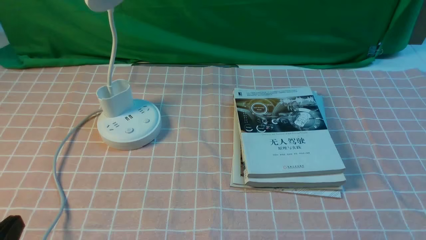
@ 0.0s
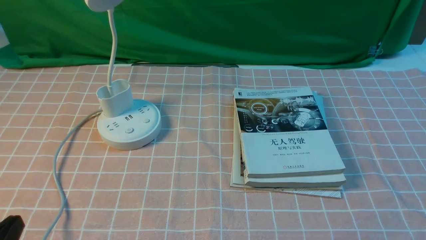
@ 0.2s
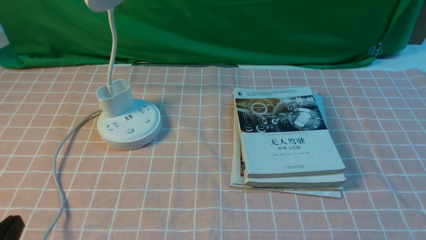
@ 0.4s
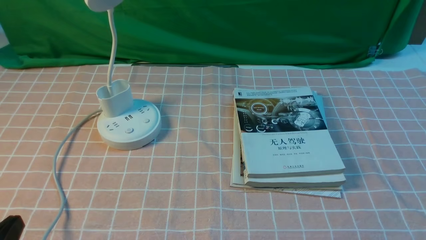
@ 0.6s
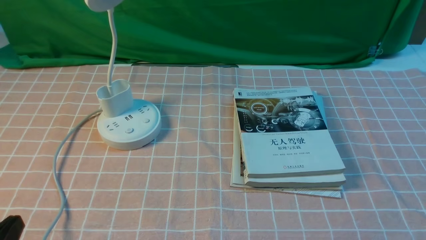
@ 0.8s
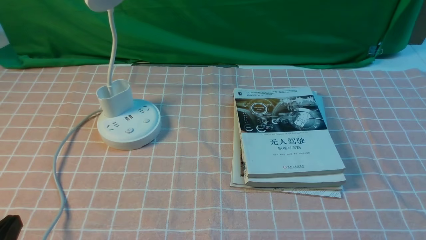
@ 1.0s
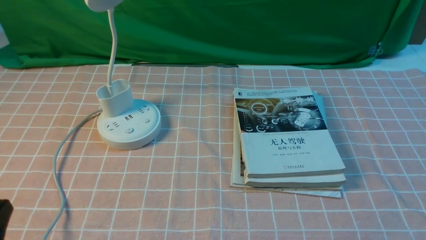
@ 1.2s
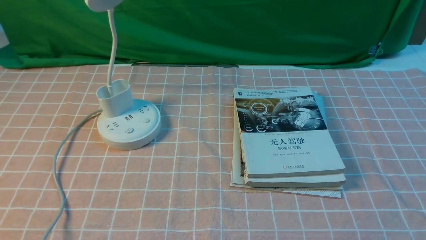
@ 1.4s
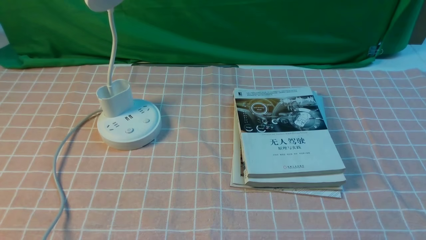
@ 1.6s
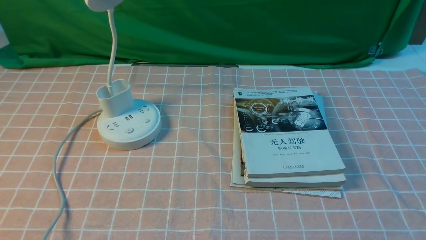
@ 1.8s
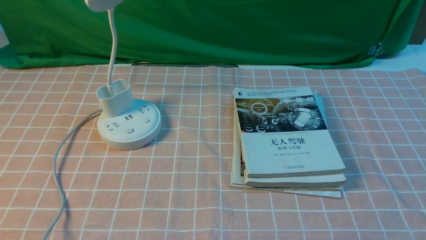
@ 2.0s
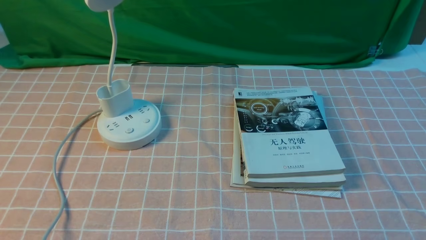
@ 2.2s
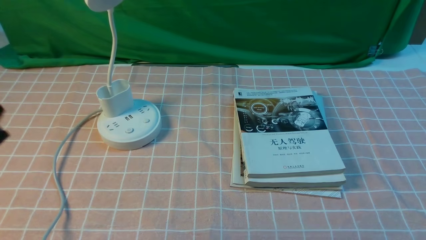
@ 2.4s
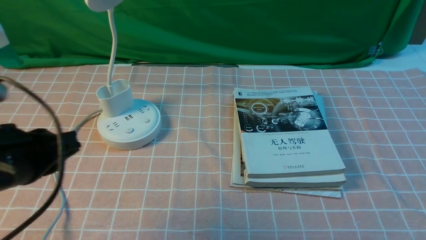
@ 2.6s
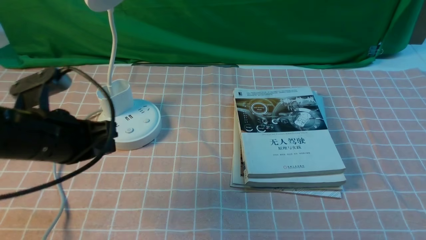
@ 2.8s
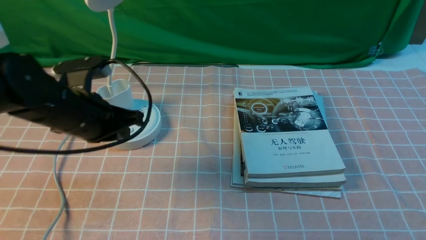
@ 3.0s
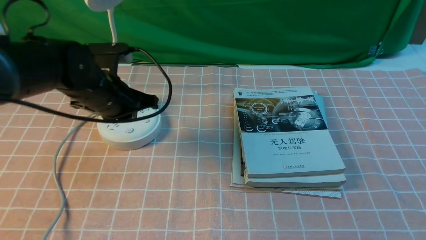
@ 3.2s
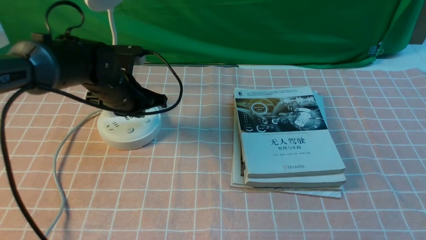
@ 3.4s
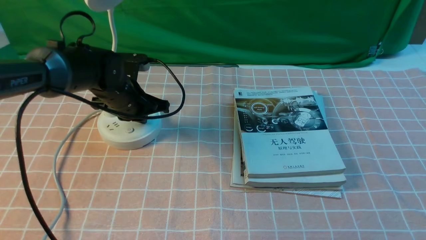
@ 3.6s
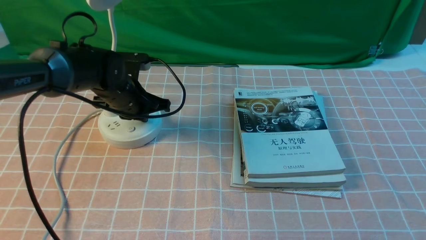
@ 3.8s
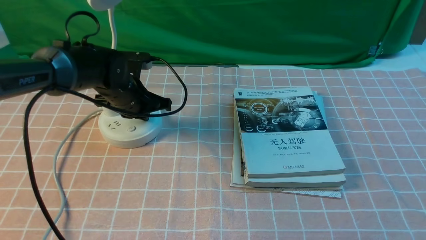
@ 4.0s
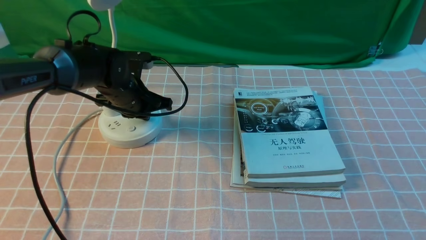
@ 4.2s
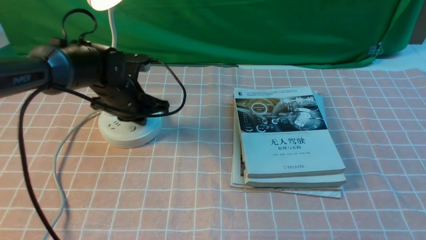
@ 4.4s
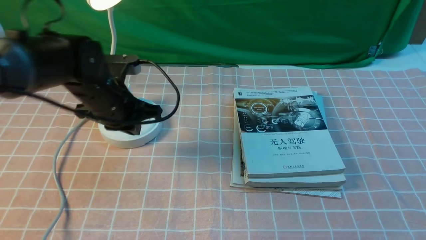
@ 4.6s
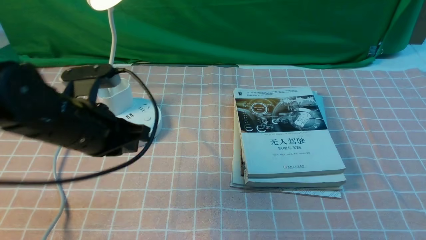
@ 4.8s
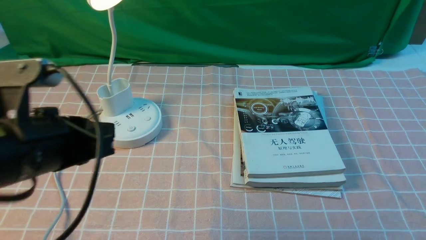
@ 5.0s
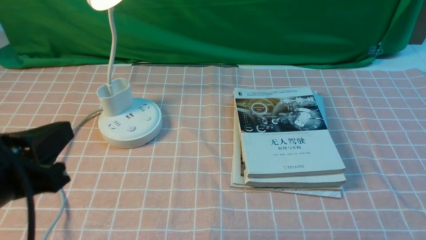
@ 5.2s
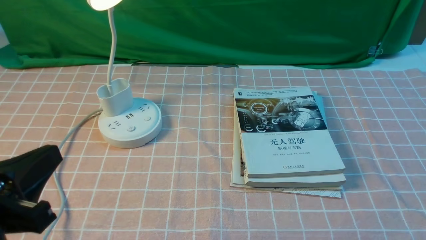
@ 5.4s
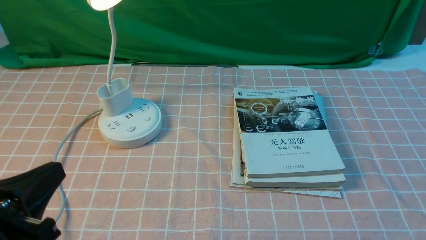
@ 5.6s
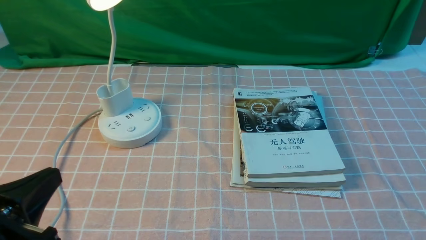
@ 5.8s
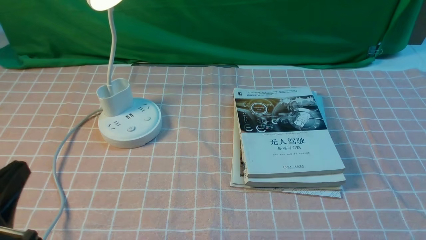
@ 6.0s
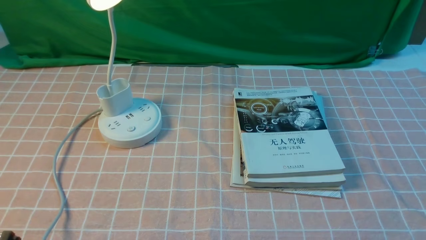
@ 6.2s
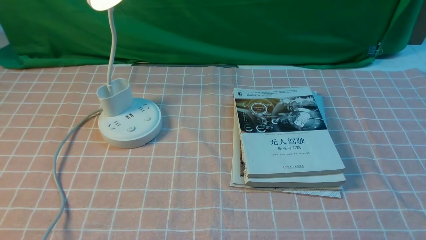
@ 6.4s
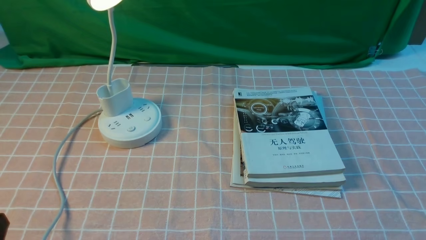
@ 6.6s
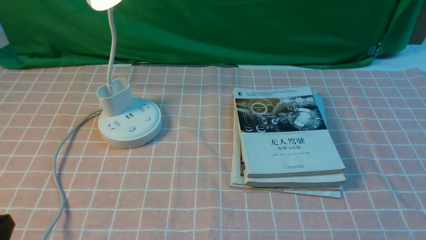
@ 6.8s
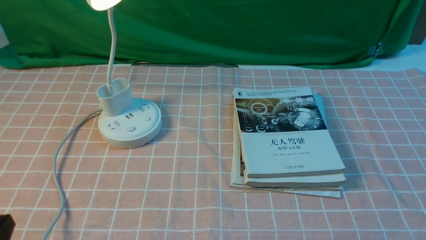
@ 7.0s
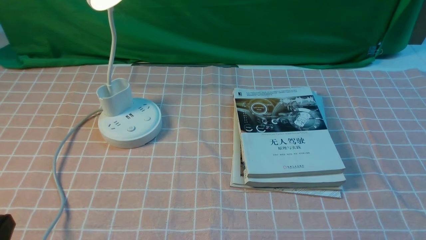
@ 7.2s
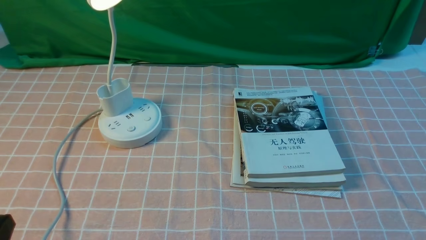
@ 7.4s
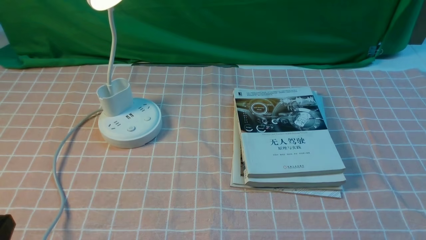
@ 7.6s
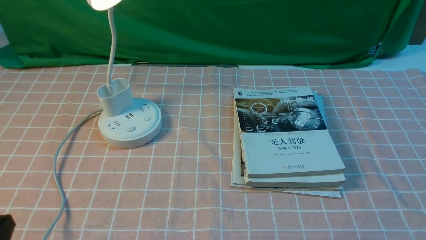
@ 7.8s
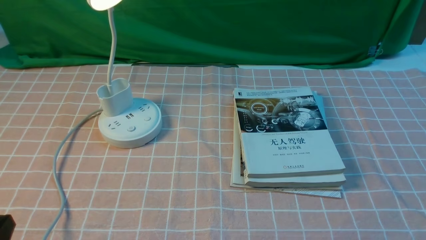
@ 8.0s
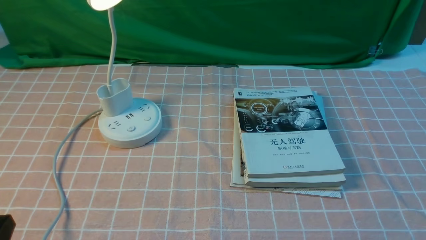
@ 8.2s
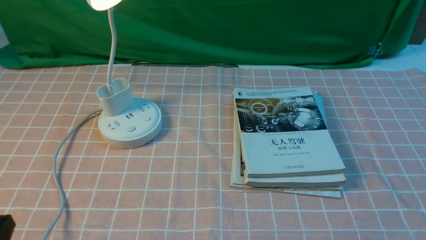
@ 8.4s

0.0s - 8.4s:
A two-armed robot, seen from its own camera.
Step, 0.0s - 4.6s: use the left arm to press the button switch on the lamp holder.
1.4s - 2.8s: The left gripper shifts about 20 cm forward.
2.8s - 4.2s: The left gripper moves forward and downward, approximately 20 cm.
4.2s - 5.6s: The left gripper is displaced backward by some 30 cm.
5.6s - 7.0s: The left gripper goes approximately 10 cm downward.
7.0s - 8.4s: Both grippers stay put.

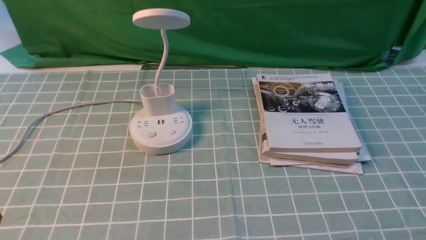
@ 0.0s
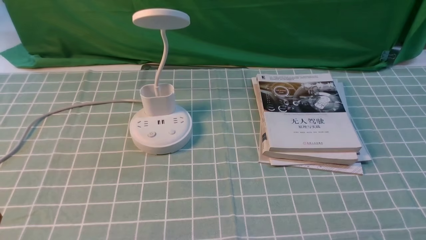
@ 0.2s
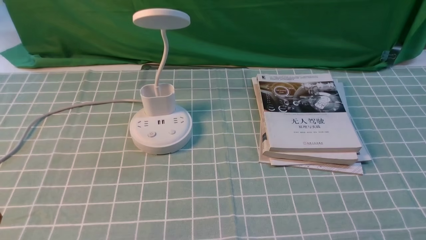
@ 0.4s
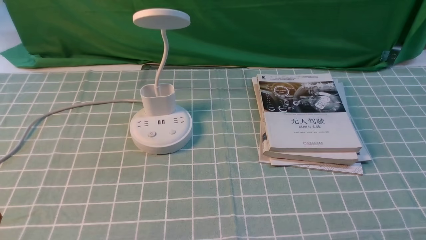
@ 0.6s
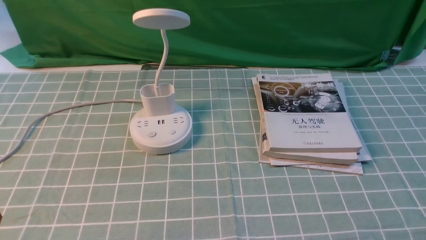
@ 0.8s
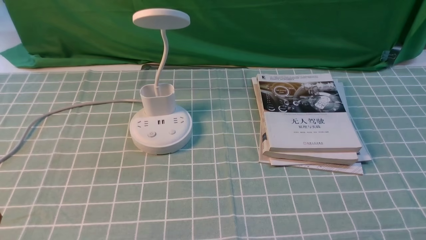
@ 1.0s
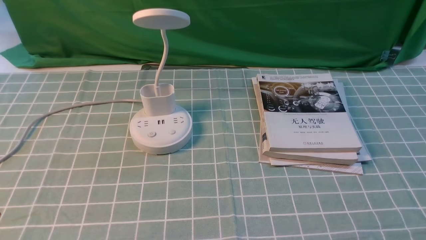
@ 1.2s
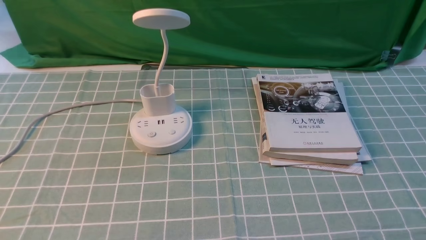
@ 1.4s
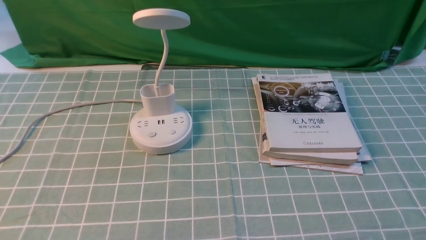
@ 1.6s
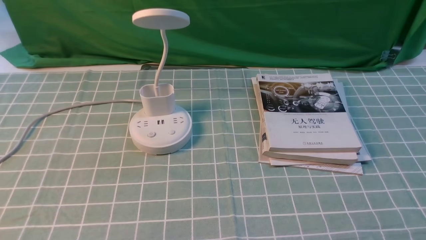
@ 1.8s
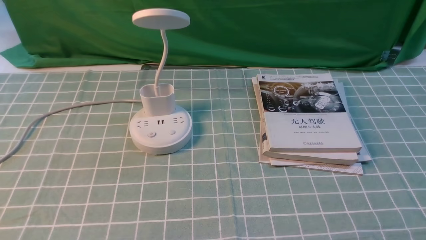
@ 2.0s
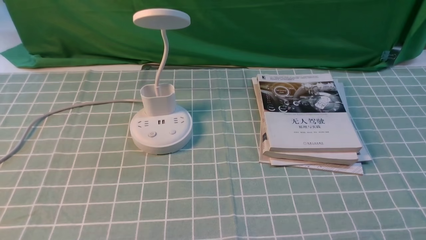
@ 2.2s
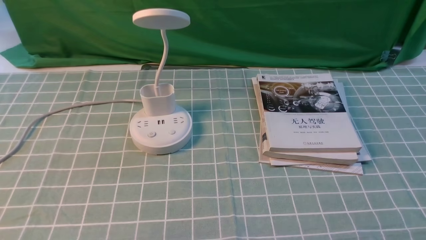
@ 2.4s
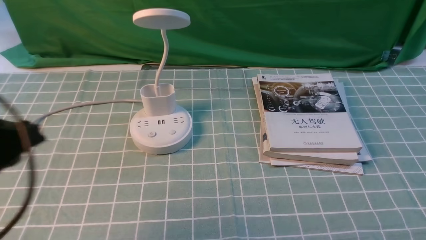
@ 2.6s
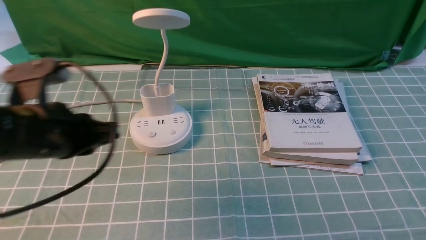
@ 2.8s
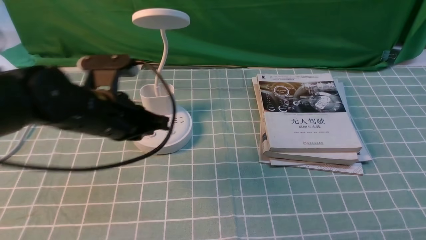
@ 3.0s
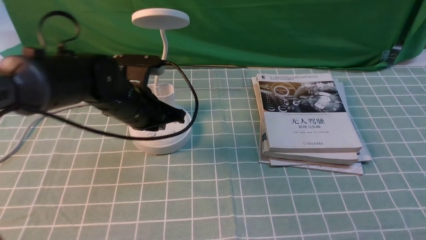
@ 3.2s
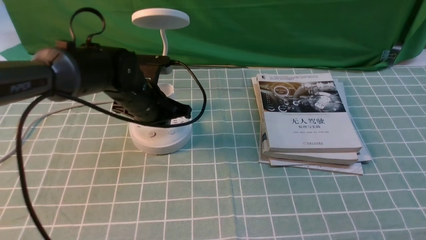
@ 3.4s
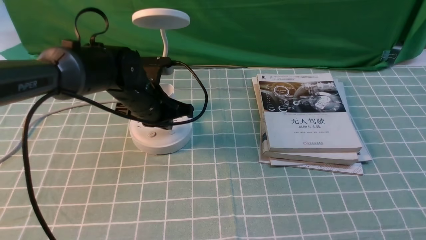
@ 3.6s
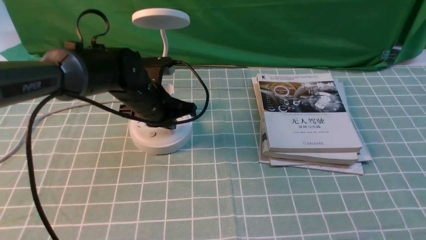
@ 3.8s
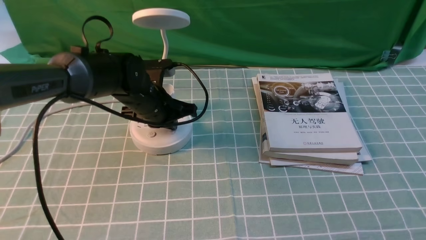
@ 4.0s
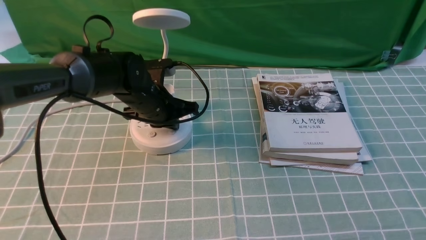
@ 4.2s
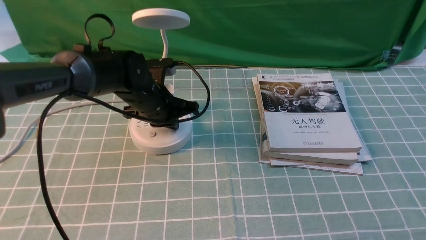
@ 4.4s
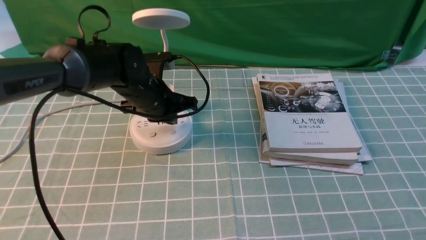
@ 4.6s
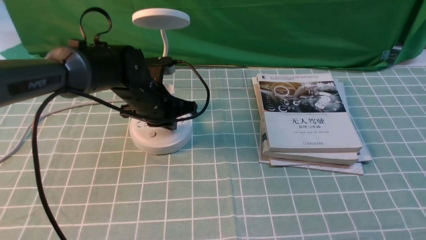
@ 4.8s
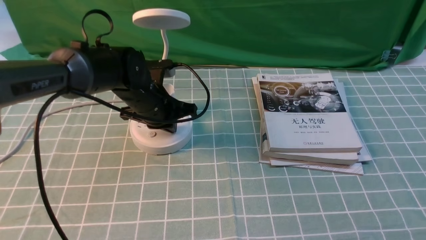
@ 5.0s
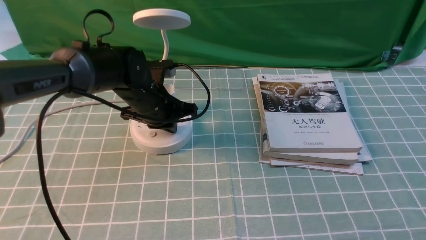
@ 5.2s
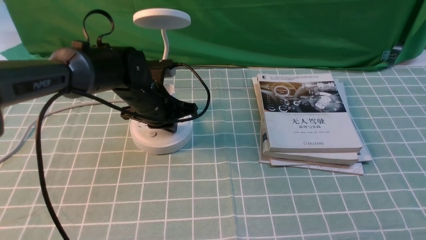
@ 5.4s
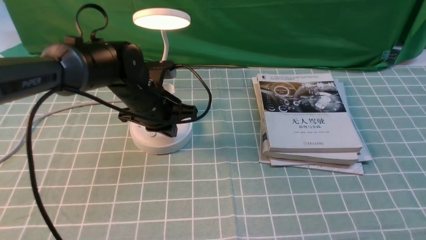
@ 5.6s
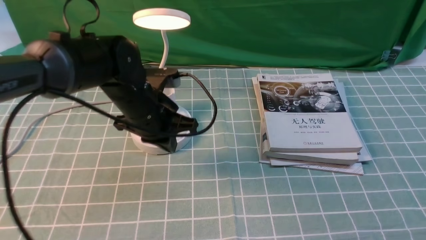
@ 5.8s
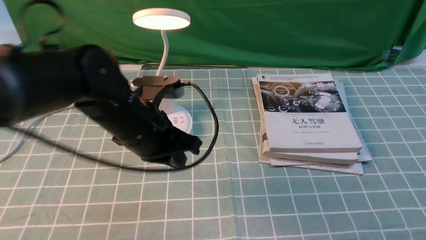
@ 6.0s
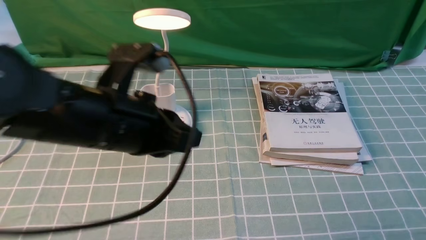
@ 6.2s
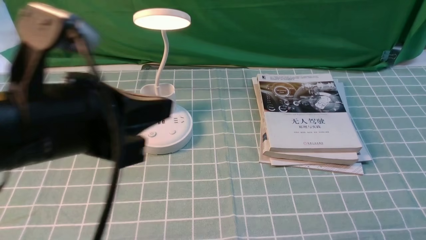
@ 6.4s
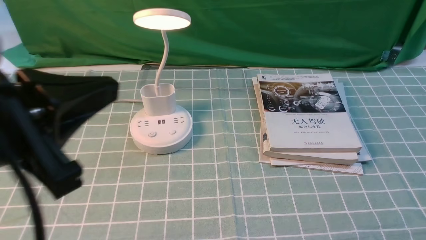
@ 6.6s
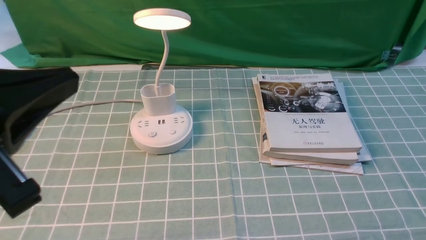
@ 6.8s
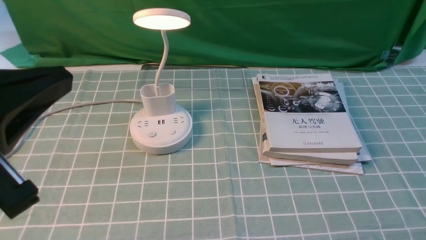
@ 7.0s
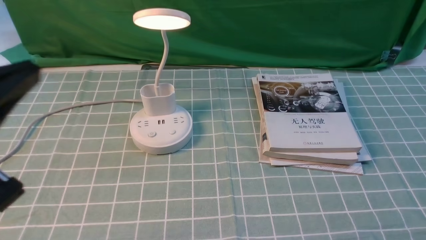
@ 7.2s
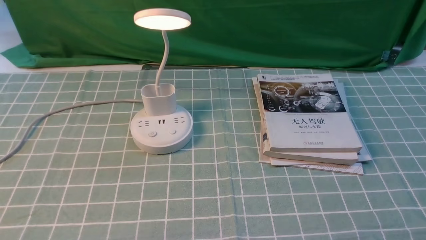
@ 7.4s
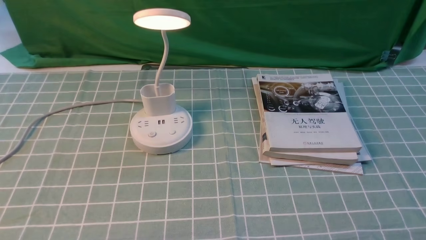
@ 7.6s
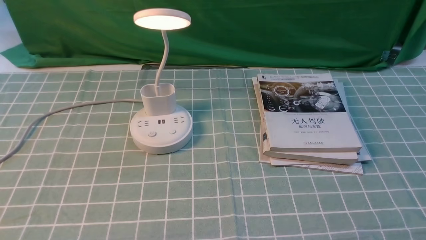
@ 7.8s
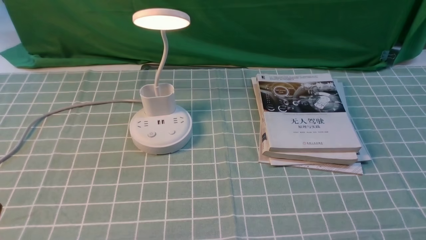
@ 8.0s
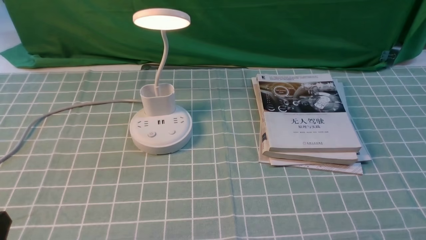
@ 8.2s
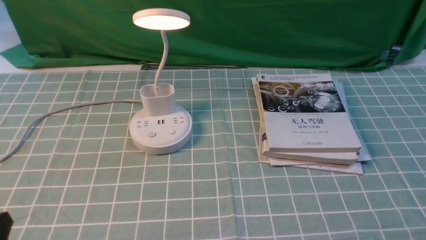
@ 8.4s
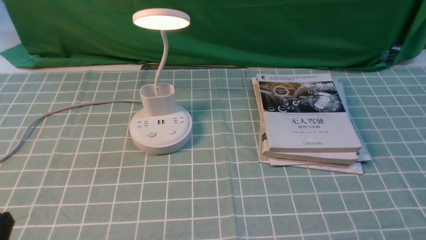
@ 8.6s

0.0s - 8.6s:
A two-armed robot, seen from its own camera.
Step, 0.0s - 5.8s: use the left arm to press the button switch on the lamp holder.
1.4s - 2.8s: The left gripper moves forward, some 20 cm.
2.8s - 4.4s: The left gripper travels forward, to the right and downward by about 20 cm.
4.4s - 5.8s: The left gripper goes approximately 5 cm backward.
5.8s - 7.2s: The left gripper is displaced backward, upward and to the left by about 30 cm.
7.2s - 8.6s: The left gripper heads downward, covering about 15 cm, and opens up.
